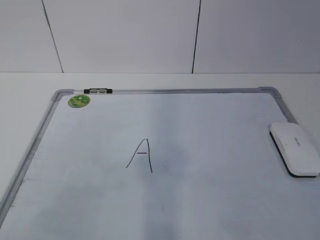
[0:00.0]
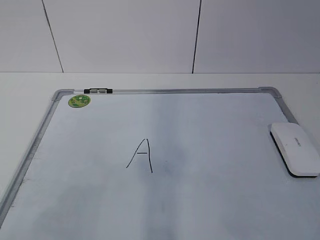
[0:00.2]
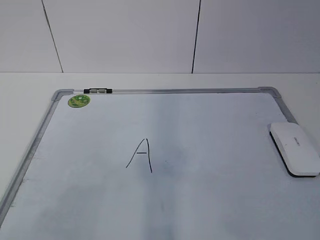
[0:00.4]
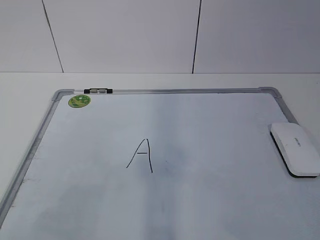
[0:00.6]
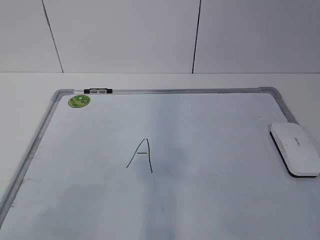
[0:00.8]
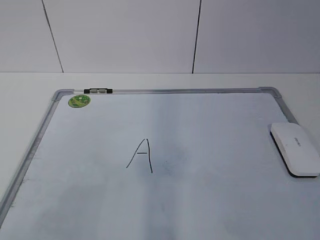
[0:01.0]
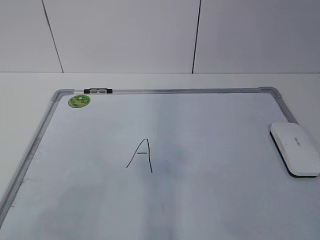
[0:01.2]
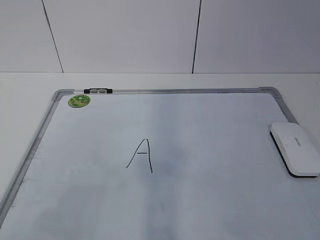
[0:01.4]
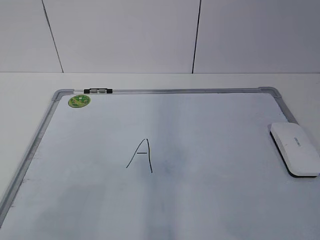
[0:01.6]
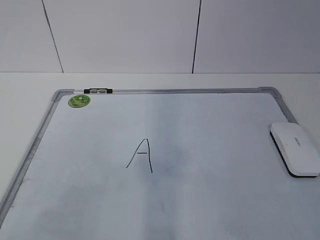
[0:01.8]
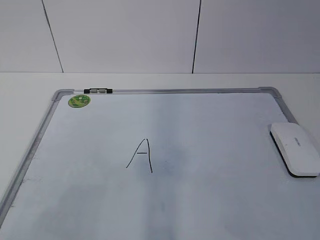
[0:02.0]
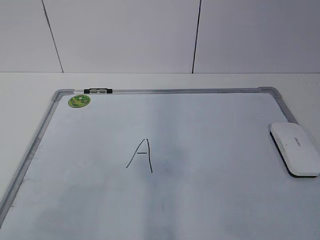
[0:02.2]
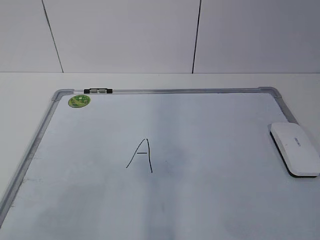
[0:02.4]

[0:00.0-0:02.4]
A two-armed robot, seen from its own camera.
Task of the whole recording: pick up the eraser on the blackboard and erase the letter "a".
0:01.2 to 0:02.4: Both grippers stay about where they are.

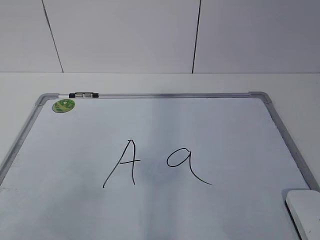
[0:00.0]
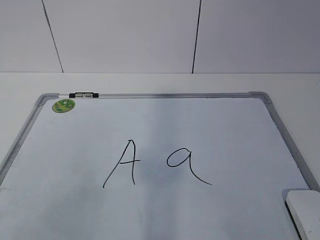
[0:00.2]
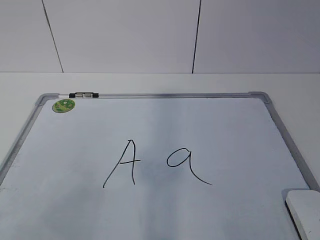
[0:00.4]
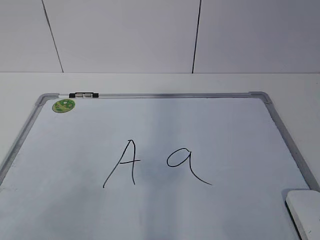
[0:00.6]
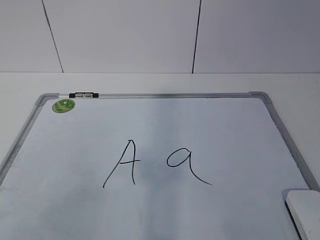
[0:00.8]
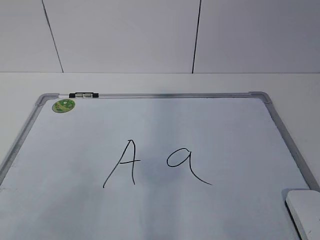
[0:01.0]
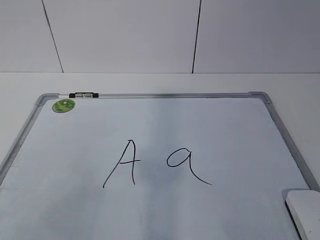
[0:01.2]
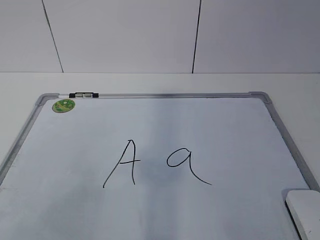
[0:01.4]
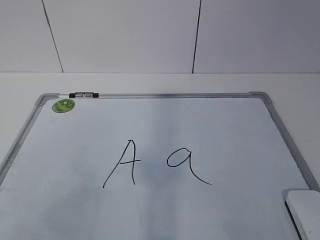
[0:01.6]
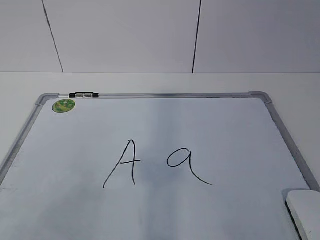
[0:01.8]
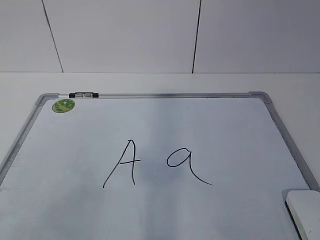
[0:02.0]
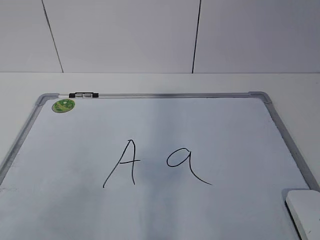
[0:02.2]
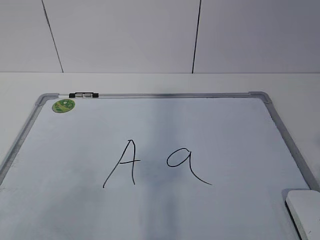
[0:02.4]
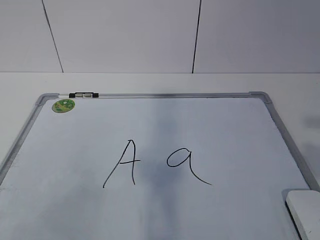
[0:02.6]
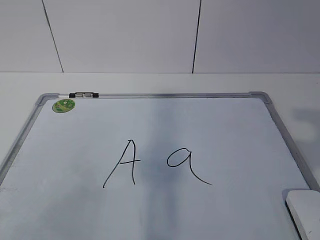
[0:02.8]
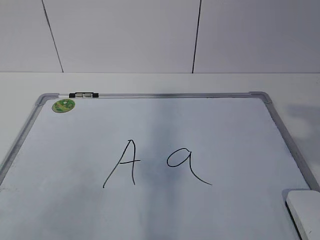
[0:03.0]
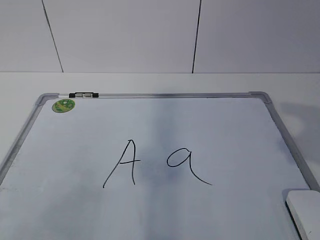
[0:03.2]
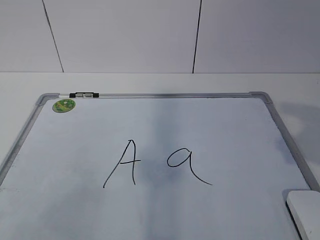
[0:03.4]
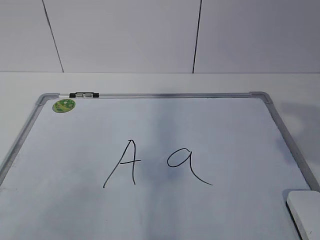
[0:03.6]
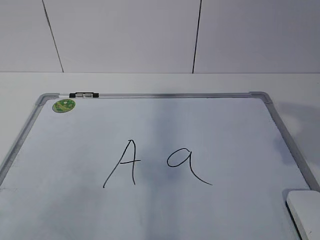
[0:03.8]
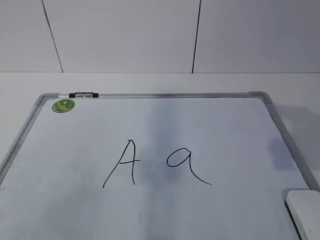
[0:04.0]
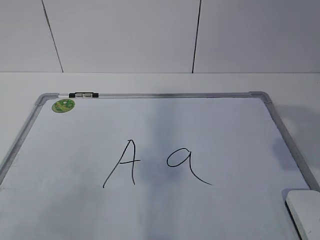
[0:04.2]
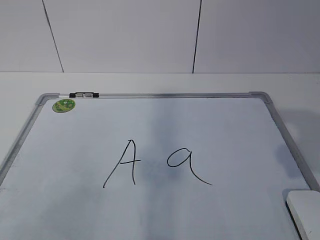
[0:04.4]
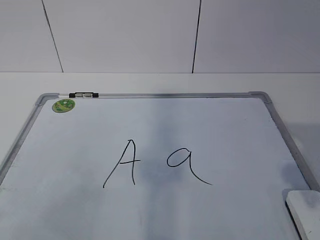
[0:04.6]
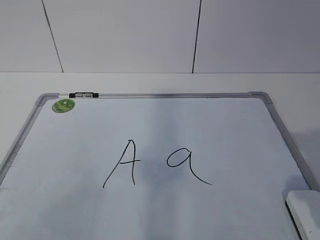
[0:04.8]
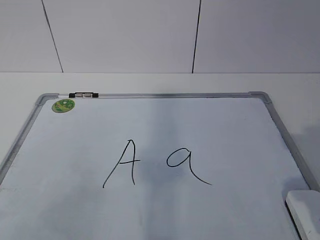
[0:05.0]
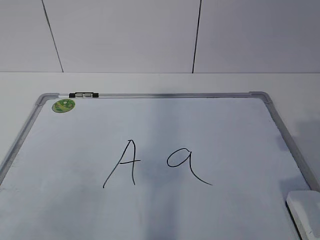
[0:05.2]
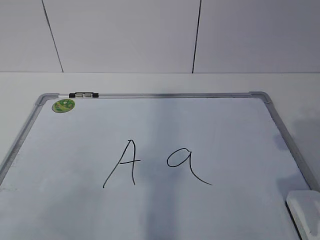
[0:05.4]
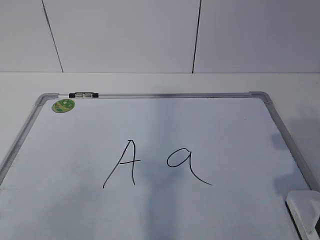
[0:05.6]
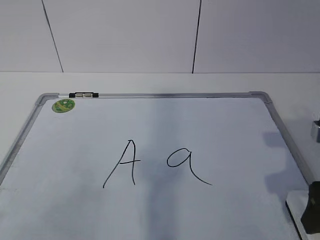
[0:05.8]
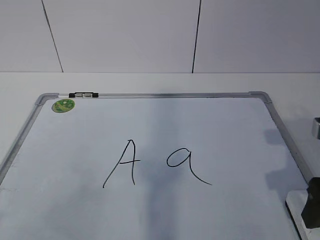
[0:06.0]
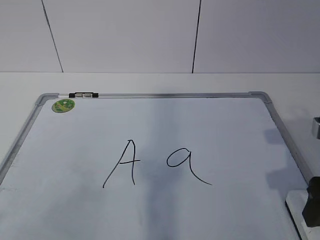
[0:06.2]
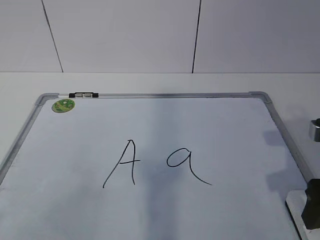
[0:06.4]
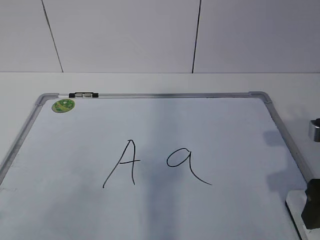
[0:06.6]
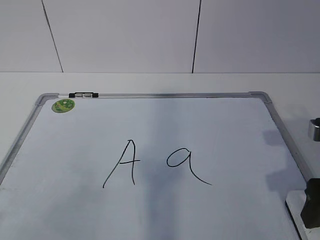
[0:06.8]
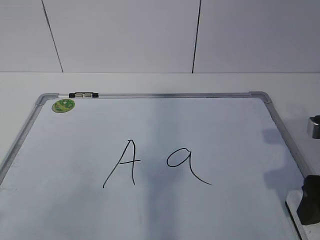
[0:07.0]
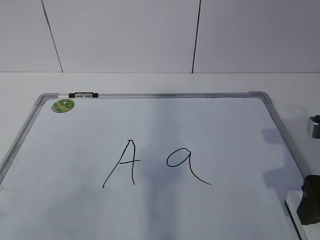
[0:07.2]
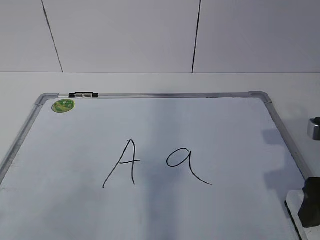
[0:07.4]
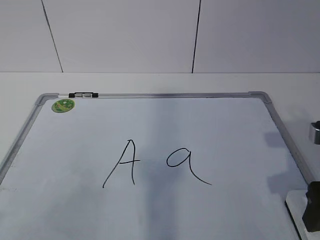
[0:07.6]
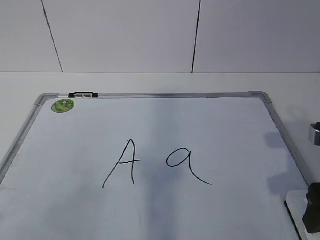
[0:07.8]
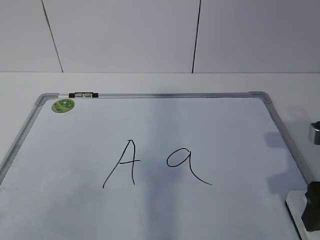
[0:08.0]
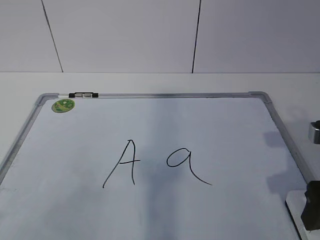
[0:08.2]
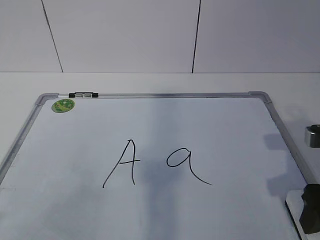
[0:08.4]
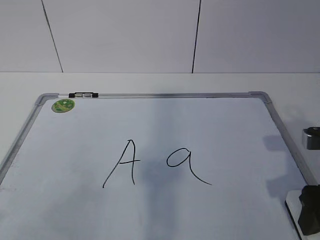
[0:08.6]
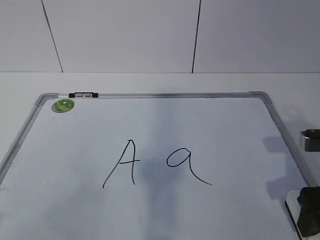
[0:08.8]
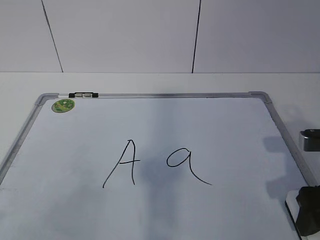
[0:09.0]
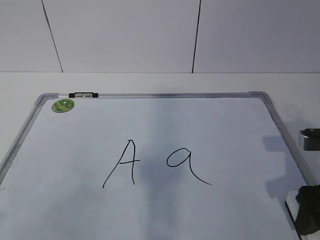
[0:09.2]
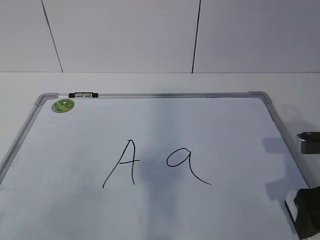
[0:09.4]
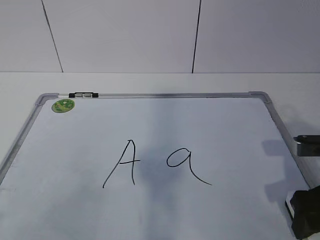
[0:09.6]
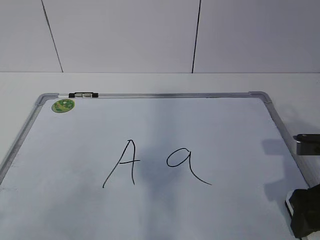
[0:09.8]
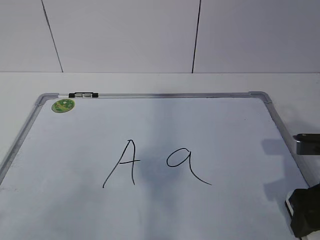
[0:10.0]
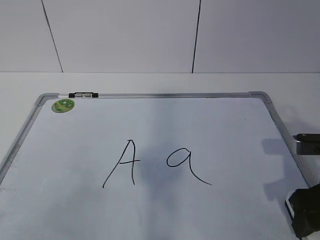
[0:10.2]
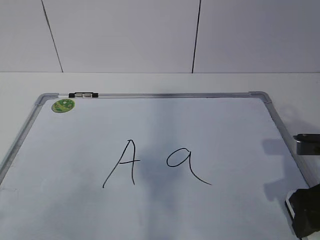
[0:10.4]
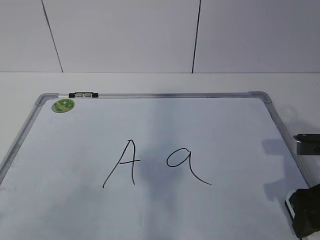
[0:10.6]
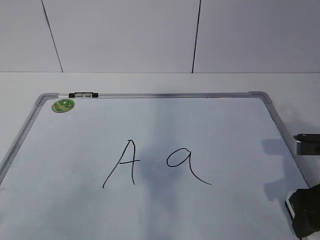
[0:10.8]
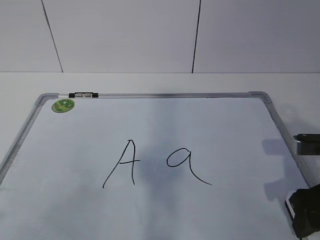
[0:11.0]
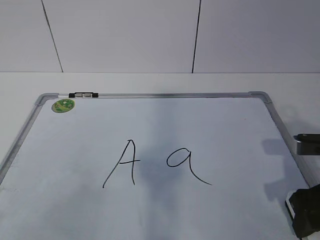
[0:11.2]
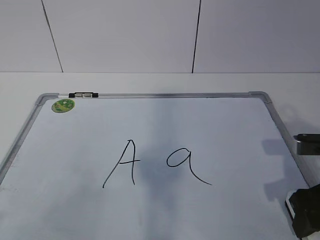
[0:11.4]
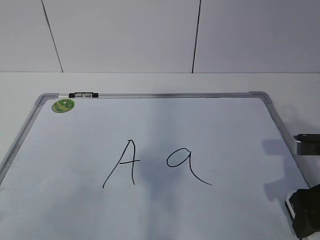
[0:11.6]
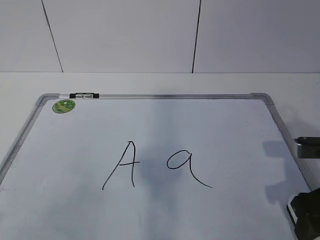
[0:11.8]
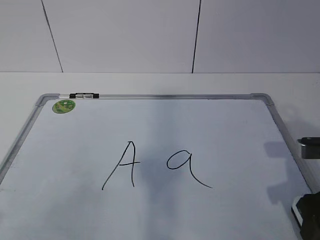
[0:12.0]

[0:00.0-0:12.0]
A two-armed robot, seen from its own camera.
Task of the whole recording: pick up the eraser on the blackboard and erase the letter "a".
Step, 0:00.0 to 0:09.6: Grab the eraser with your right hand.
0:04.4 to 0:06.0: The right gripper moves downward and forward, about 10 cm.
0:06.0 to 0:07.6: Both grippers stay put.
0:07.6 to 0:09.0: The grippers make only small movements.
0:09.0 to 0:10.4: The right gripper closes.
0:10.4 to 0:12.0: Both grippers stay put.

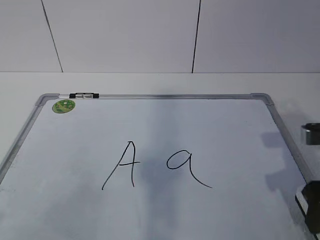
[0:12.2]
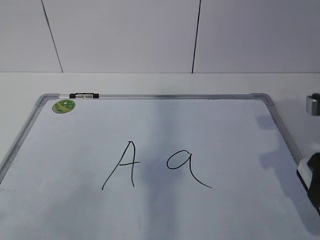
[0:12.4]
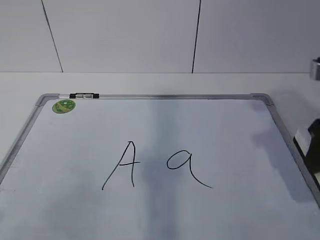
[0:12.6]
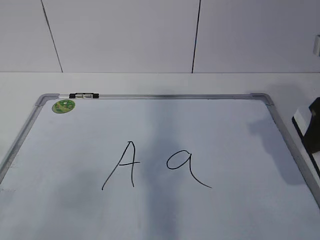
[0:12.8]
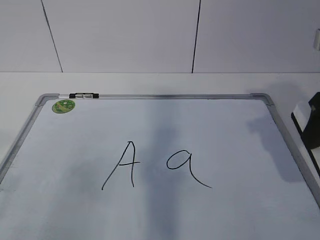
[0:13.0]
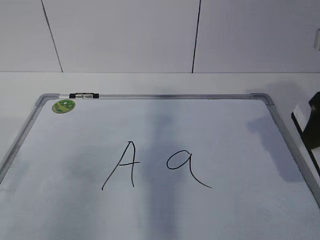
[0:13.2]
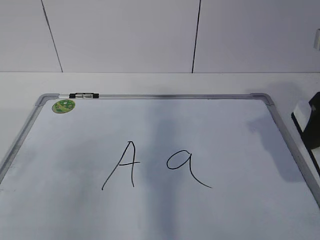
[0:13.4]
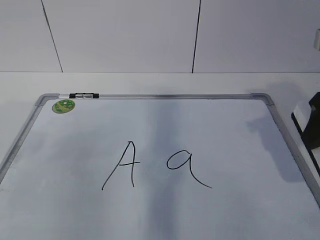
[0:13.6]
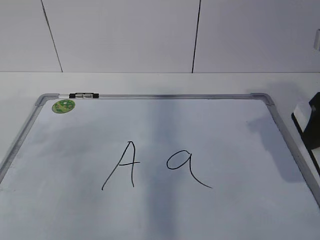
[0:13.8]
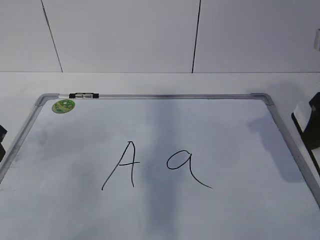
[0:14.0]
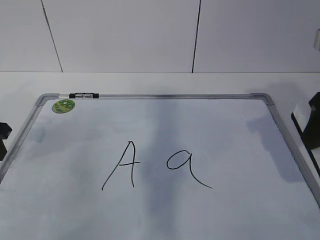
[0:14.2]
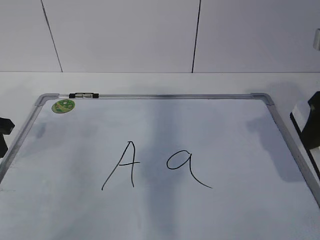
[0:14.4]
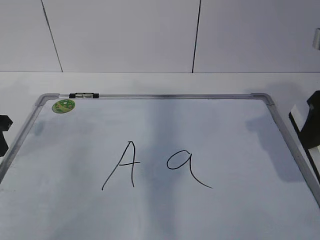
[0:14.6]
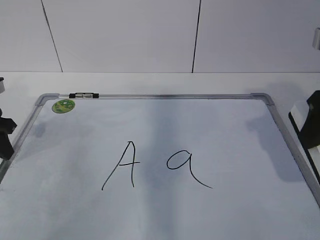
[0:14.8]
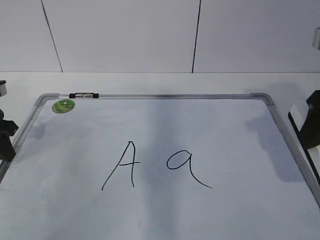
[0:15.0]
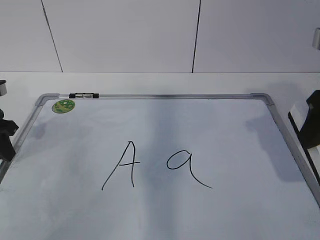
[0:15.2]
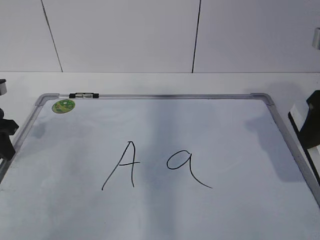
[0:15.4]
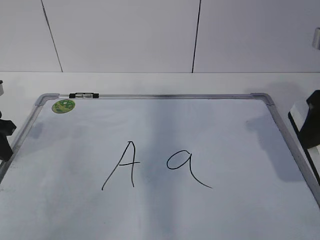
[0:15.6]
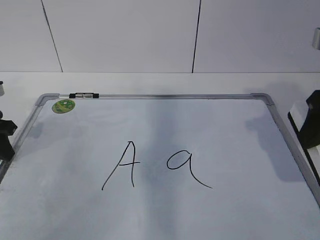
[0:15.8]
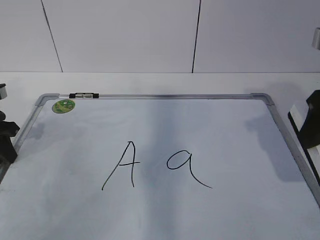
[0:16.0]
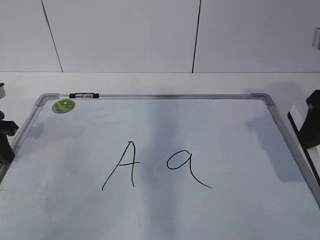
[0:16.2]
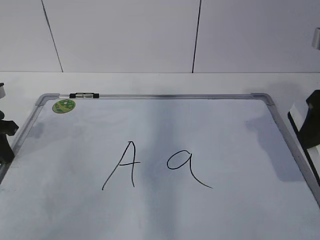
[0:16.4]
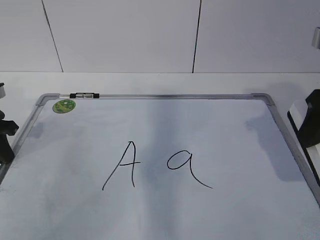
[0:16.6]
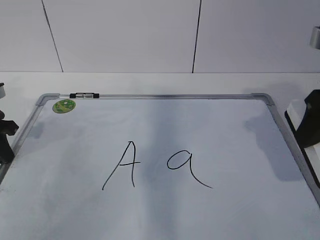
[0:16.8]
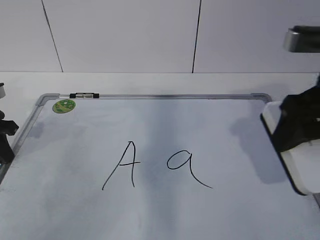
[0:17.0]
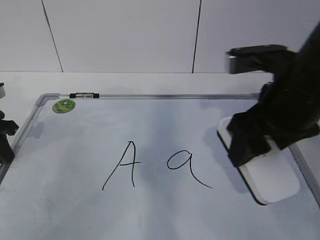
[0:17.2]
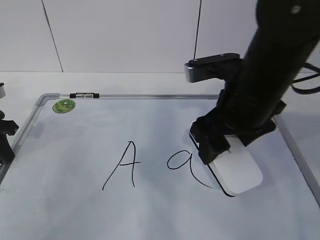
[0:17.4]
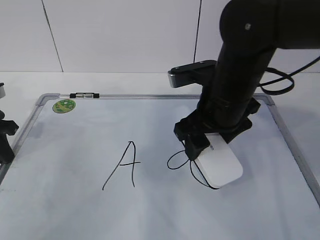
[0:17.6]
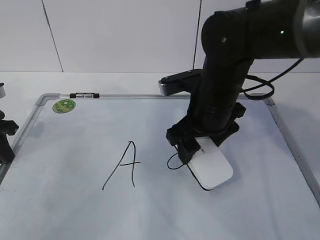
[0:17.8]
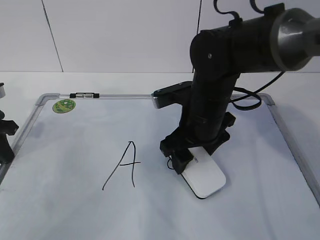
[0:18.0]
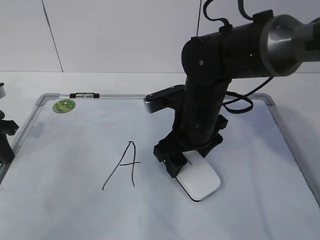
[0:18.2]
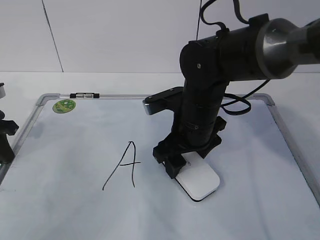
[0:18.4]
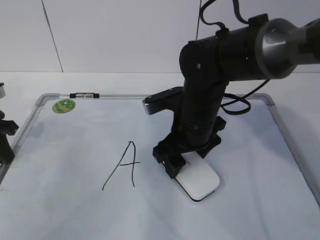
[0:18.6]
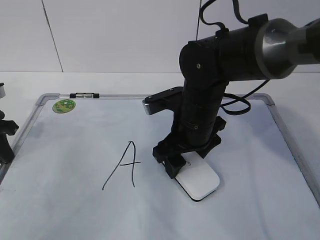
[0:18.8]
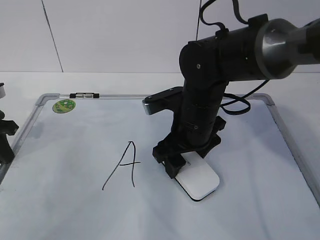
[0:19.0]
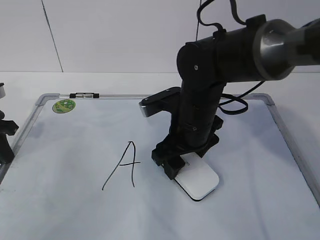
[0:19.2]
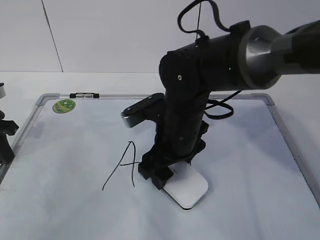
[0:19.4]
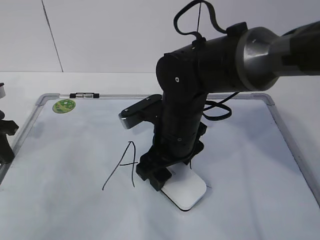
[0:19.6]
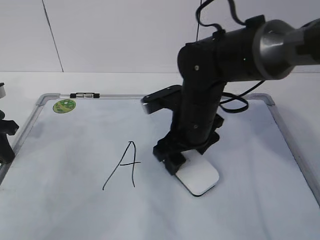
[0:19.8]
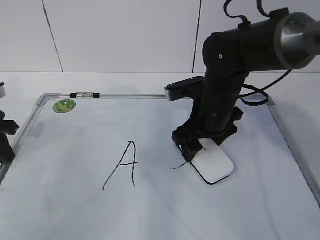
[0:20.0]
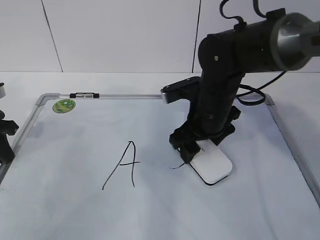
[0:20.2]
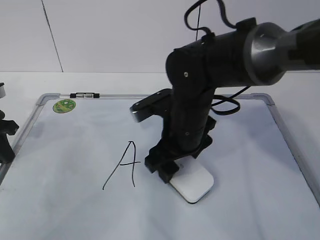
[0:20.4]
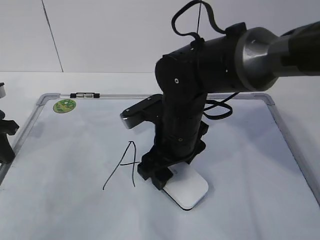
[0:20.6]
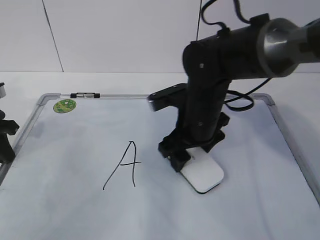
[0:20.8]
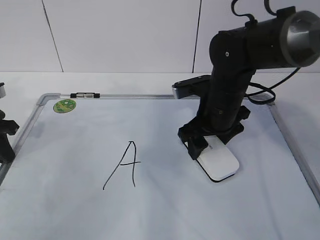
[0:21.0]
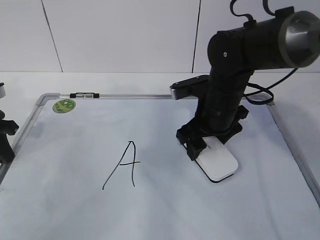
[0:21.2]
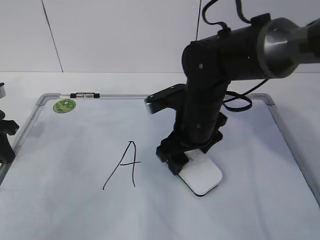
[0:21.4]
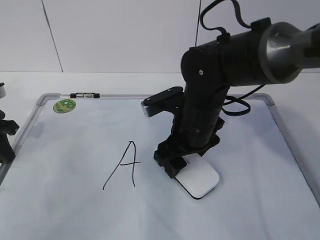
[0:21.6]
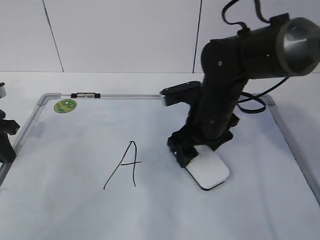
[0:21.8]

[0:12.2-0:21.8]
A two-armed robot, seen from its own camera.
Task of the whole recording: pick up the eraser on the blackboard and erase the letter "a".
Step, 0:13.6 to 0:18.2: Erase the letter a with your right hand.
Step, 0:18.4 to 0:20.2: Put down the eraser with your right hand.
0:12.2 to 0:13.8: The right gripper shifts roughly 10 cm upward.
0:13.8 to 0:15.4: The left gripper travels forward and downward by some 10 cm, and closes up.
0:17.0 to 0:18.6: The right gripper shifts approximately 20 cm to the left, downward and forward.
0:18.6 to 0:20.2: The grippers make only small movements.
0:20.2 to 0:21.8: The right gripper swings left and right, about 10 cm each way, with 2 reversals.
